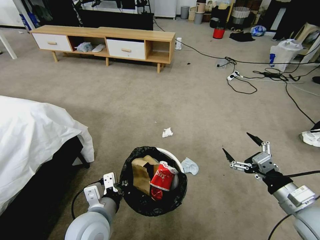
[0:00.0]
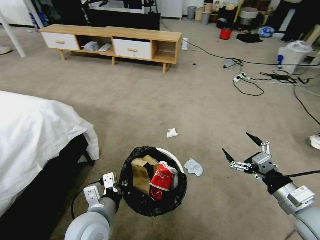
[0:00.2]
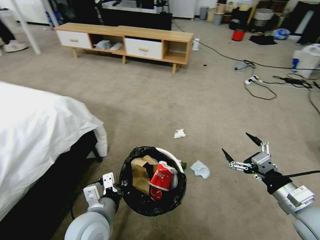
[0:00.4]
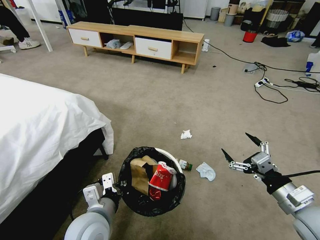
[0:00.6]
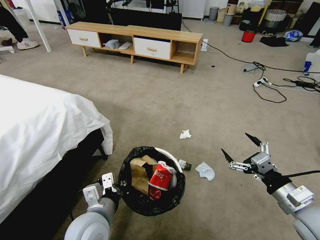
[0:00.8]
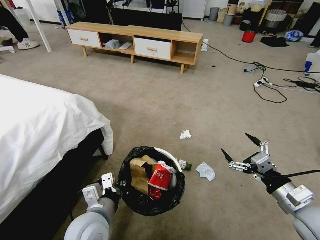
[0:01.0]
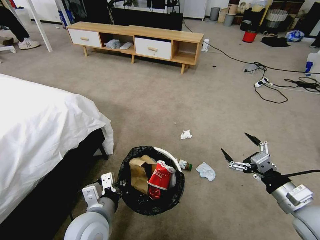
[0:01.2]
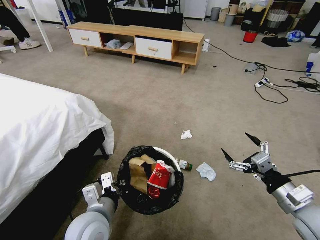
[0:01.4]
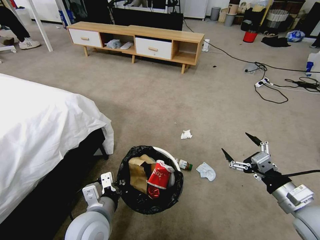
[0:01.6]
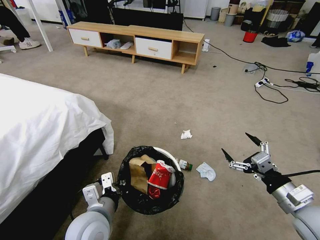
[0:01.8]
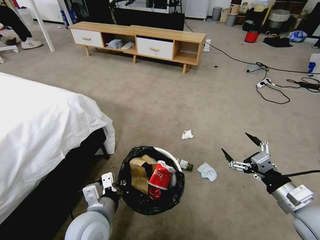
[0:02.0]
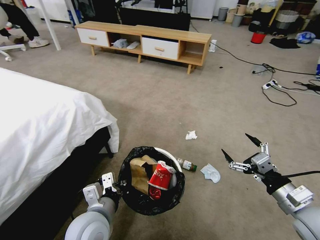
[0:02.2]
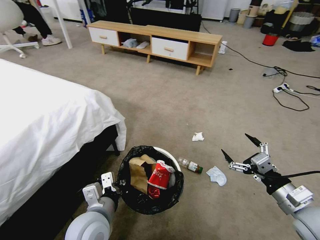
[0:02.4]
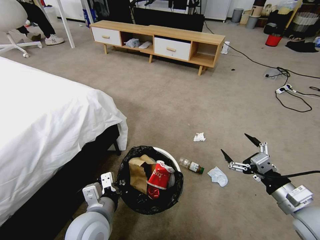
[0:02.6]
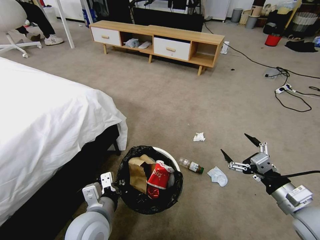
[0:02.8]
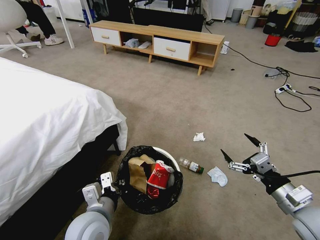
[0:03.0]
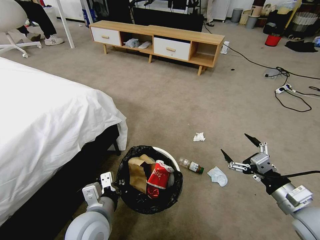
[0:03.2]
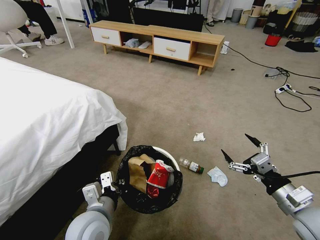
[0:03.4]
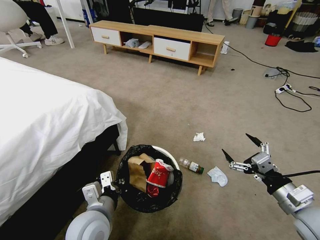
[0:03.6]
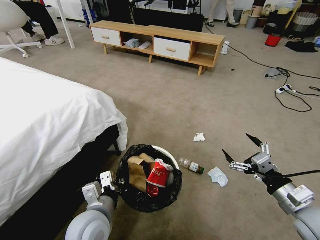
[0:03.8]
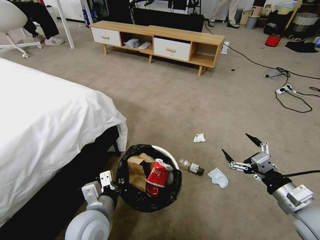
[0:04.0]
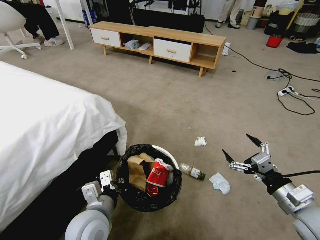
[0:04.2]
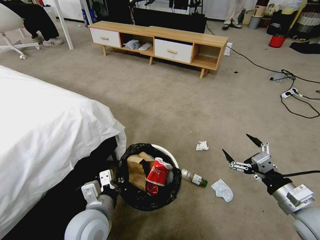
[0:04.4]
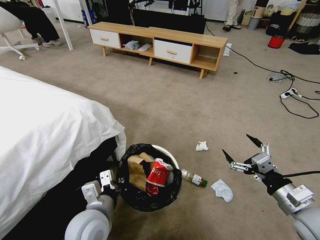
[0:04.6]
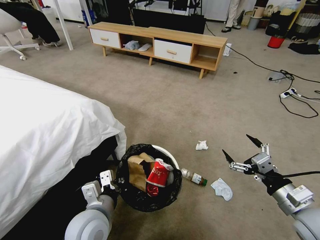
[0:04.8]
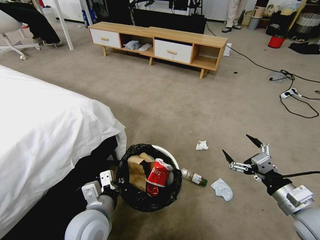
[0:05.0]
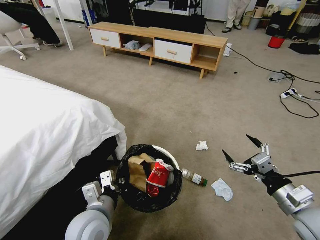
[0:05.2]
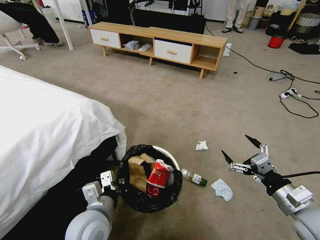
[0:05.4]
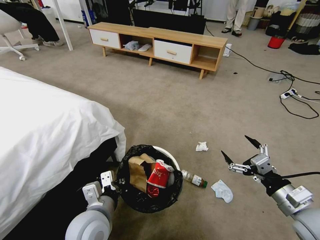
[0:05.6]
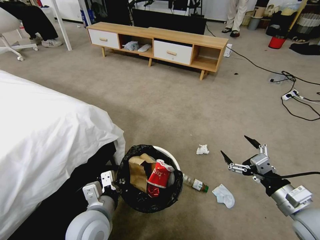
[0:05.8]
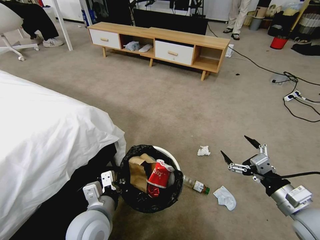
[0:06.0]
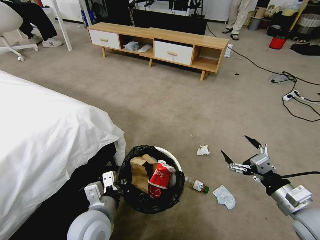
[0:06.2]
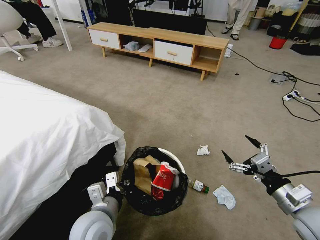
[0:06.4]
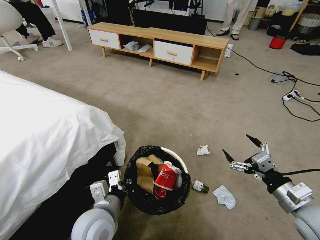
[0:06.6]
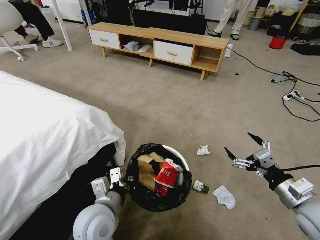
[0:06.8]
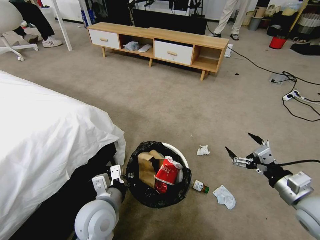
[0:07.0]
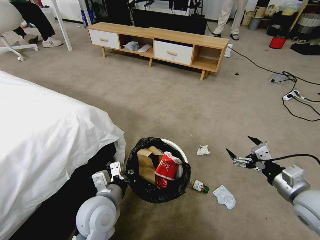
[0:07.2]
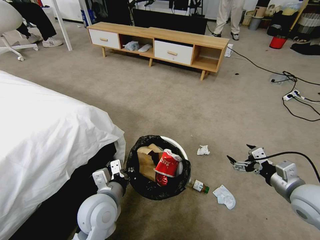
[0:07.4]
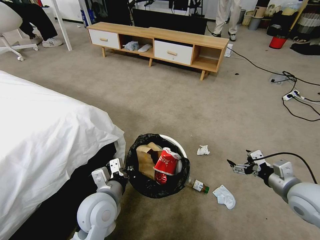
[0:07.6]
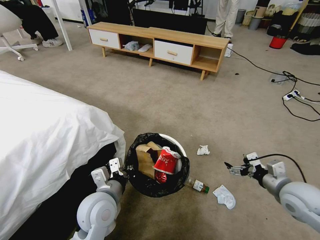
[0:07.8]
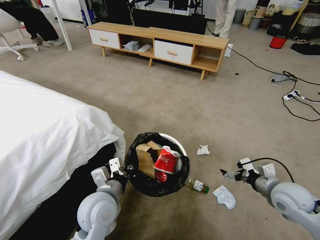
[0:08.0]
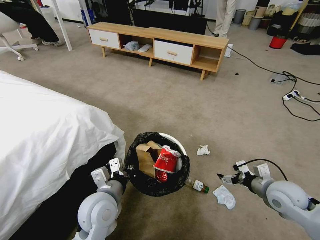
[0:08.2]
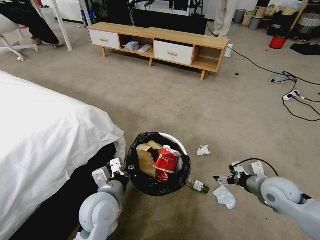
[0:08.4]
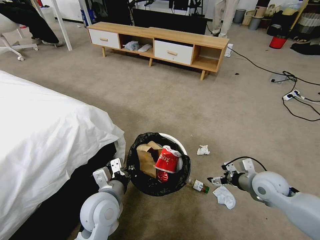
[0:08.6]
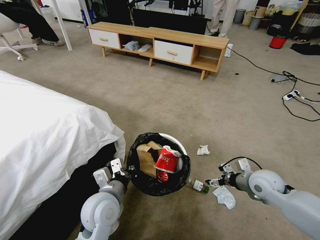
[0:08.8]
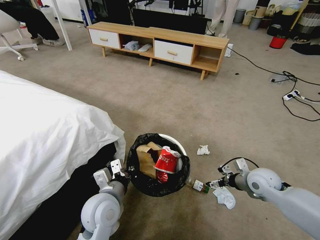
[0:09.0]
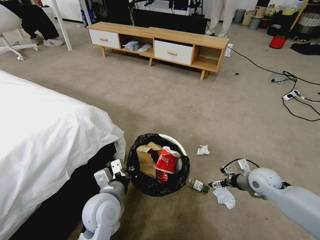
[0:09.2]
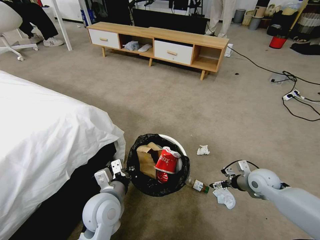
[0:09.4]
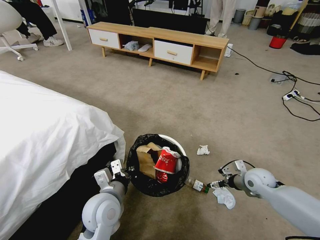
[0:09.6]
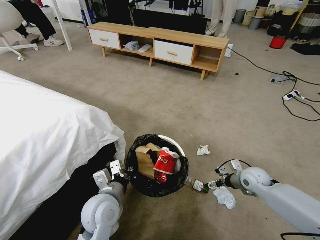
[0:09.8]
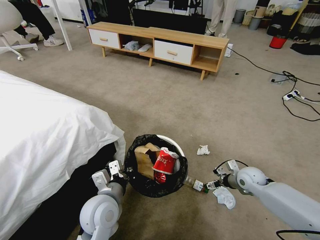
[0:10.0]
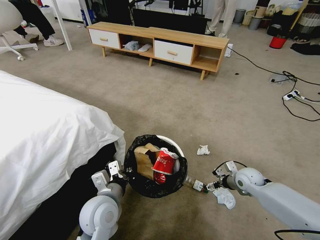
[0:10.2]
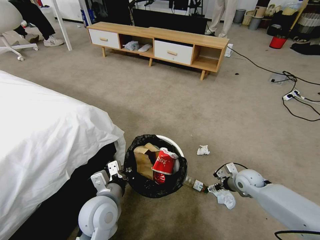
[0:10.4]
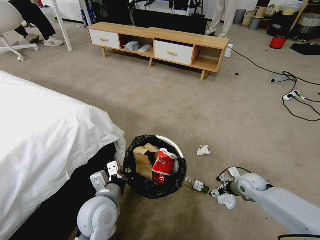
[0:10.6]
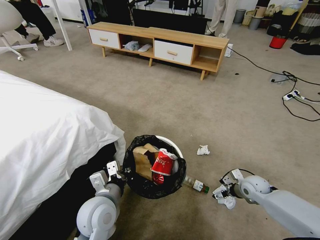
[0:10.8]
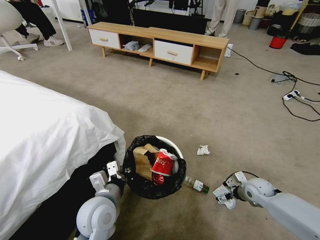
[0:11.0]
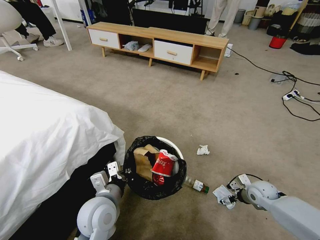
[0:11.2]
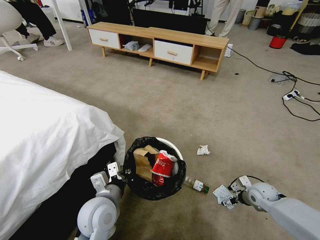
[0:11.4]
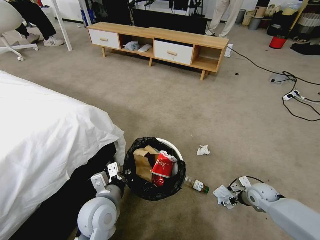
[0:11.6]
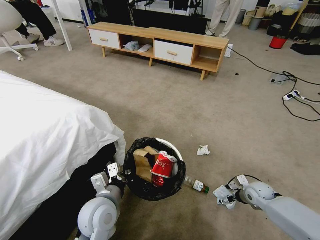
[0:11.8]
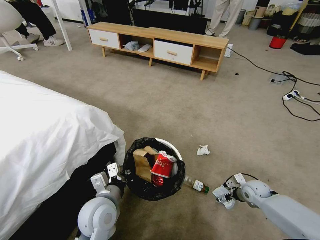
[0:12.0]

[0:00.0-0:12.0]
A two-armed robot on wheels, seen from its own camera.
Task of the whole recording: Pick up the trash bin, then pick up the garbage from the floor and place it into the trash bin.
0:04.4 to 0:06.0: Both grippers stay put.
0:06.0 to 0:07.6: The right gripper shifts about 5 cm forward.
0:07.6 to 0:09.0: The right gripper goes about 10 cm forward and downward.
0:09.0 to 0:10.4: The right gripper goes about 10 cm downward.
0:10.4 to 0:12.0: The right gripper changes place by approximately 5 cm.

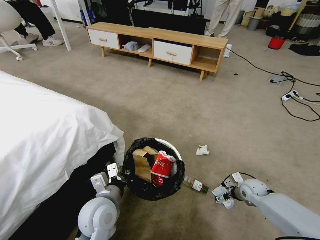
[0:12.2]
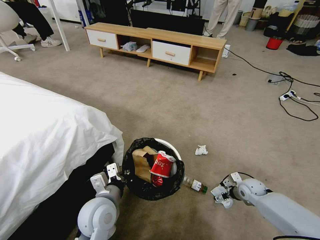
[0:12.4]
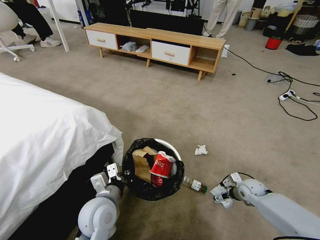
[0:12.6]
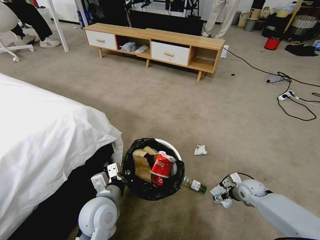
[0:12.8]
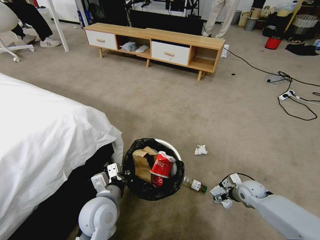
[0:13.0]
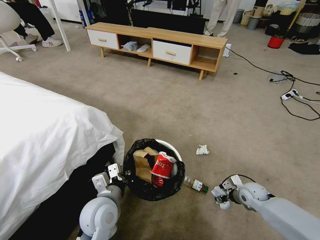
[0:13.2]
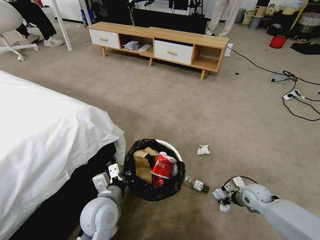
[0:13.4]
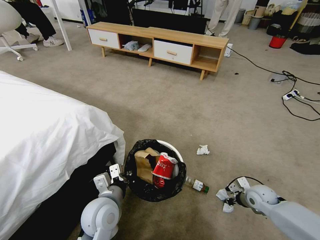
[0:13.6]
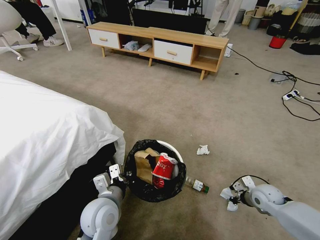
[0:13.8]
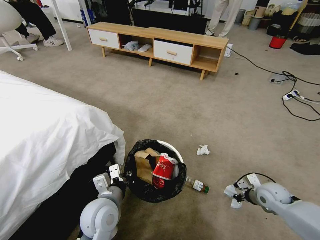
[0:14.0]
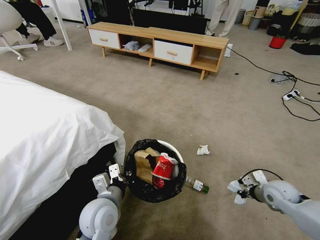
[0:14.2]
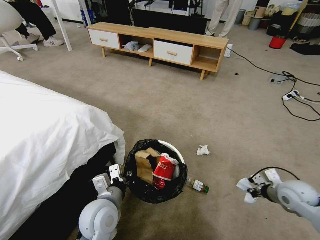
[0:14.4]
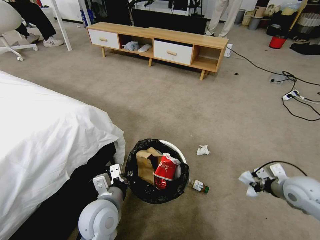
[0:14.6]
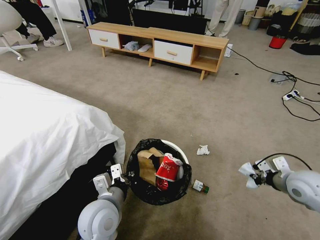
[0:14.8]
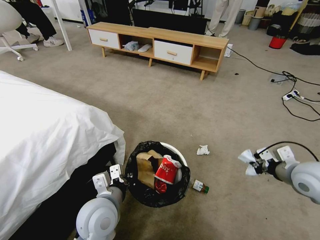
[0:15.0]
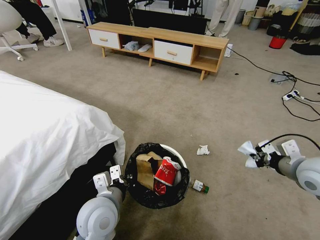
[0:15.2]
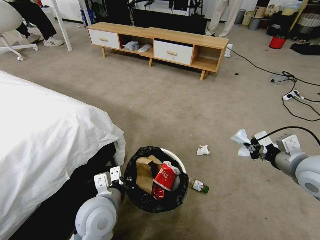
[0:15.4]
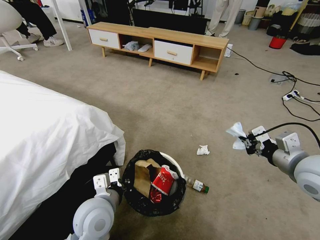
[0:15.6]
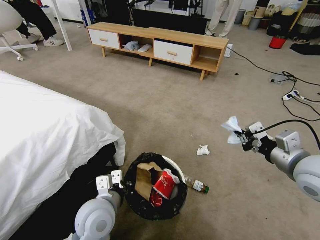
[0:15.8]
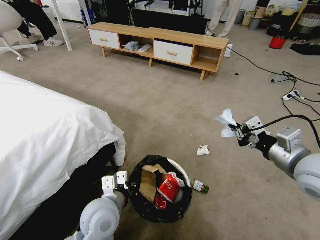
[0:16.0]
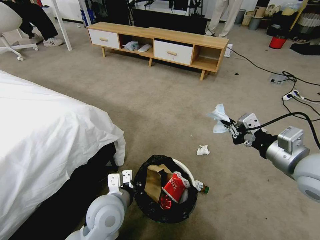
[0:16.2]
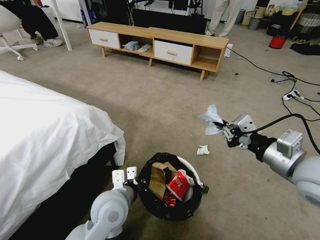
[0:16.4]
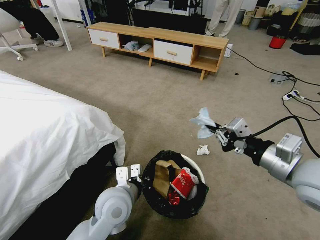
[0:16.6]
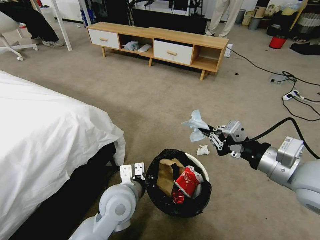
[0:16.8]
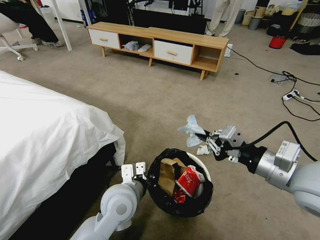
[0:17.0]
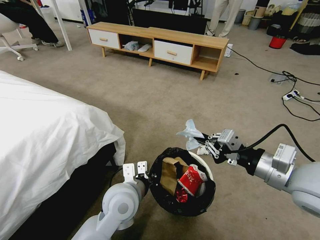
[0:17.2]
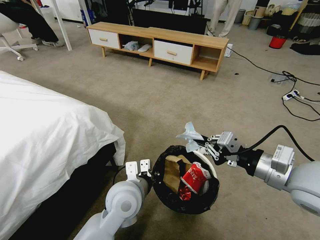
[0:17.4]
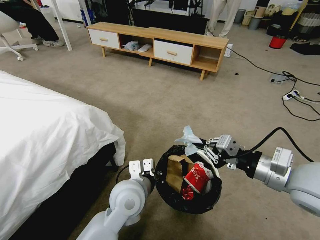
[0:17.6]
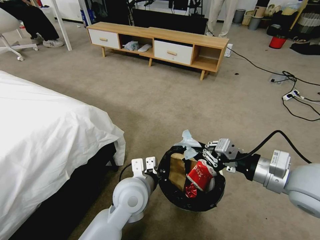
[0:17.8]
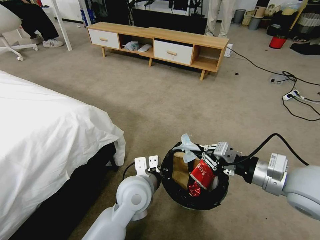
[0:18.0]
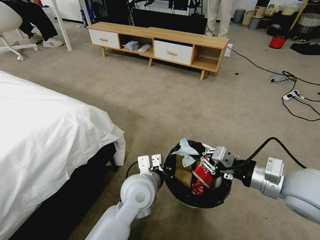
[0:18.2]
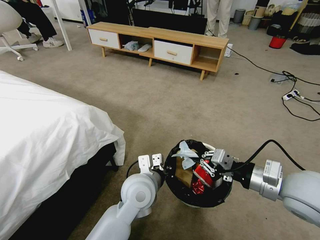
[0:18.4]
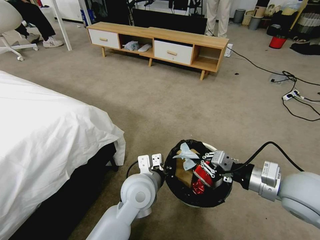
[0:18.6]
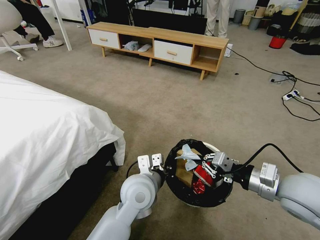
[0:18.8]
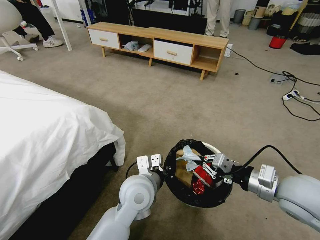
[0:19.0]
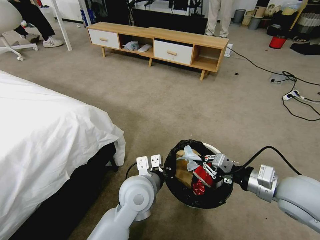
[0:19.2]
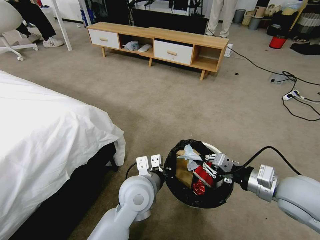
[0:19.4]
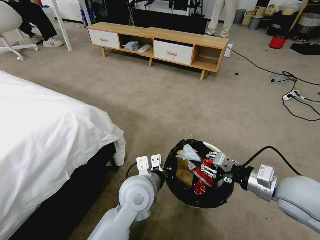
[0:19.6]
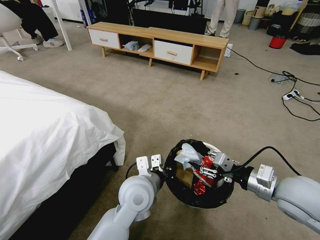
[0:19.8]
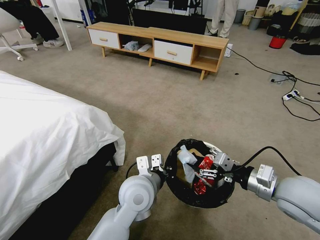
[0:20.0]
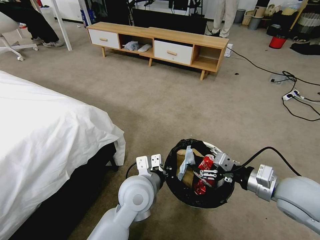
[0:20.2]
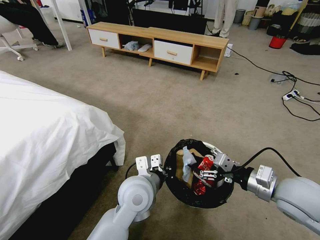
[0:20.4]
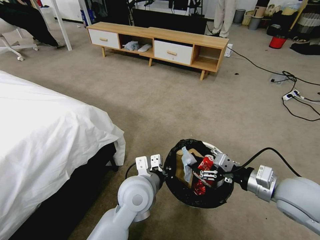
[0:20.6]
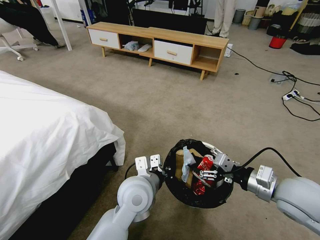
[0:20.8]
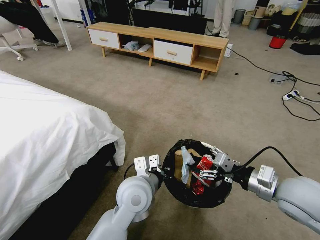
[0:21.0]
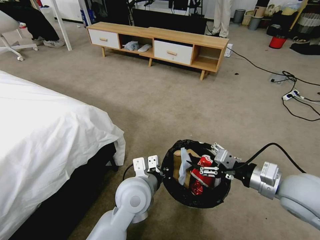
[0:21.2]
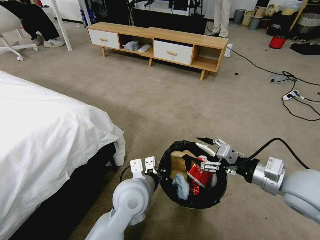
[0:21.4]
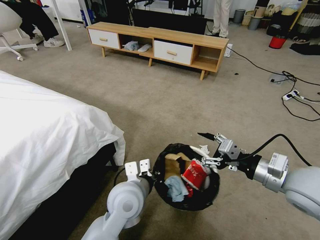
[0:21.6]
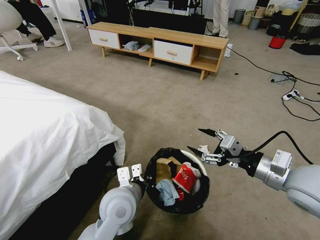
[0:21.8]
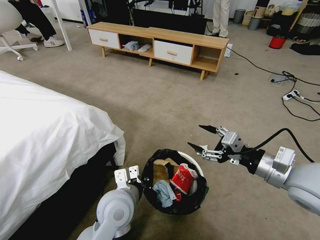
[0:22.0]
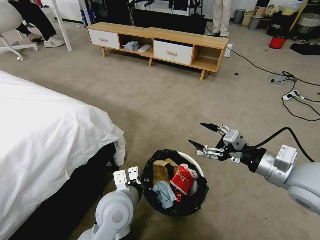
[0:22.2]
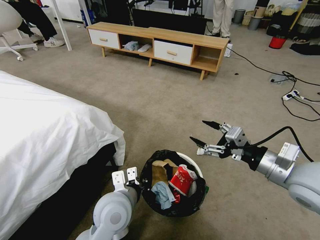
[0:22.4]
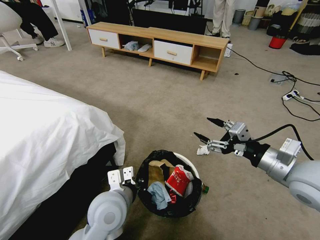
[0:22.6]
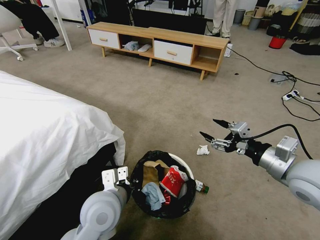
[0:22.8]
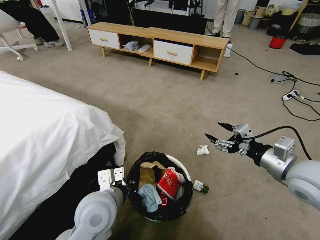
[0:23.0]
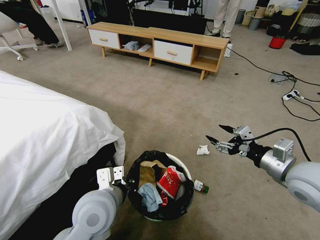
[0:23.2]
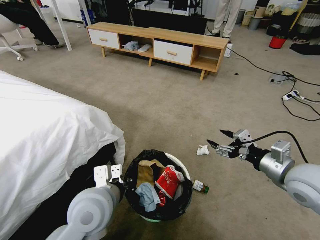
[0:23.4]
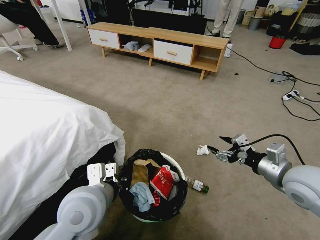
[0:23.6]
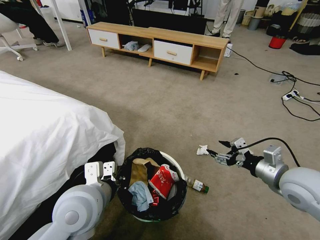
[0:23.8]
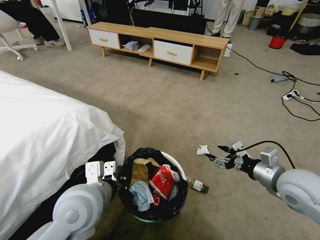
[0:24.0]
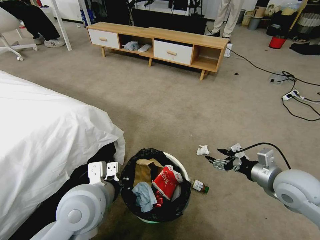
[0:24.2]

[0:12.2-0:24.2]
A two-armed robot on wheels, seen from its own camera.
Task of the whole recording: Pick up the trash bin, then pick up the garbage from the floor and place it into the trash bin.
0:12.2 to 0:13.8: The right gripper moves some 5 cm, and closes.
0:13.8 to 0:15.2: The right gripper goes approximately 25 cm upward.
0:15.2 to 0:16.6: The right gripper goes some 15 cm to the left, upward and backward.
0:16.6 to 0:18.2: The left gripper heads to the right, covering some 5 cm.
0:18.2 to 0:19.8: The right gripper moves about 5 cm, and opens.
0:19.8 to 0:21.2: The grippers make only small movements.
0:21.2 to 0:22.6: The left gripper shifts roughly 5 cm to the left.
0:22.6 to 0:24.2: The left gripper moves upward, approximately 5 cm; the right gripper is displaced downward by about 10 cm.
